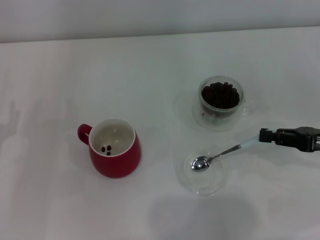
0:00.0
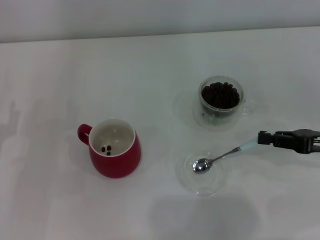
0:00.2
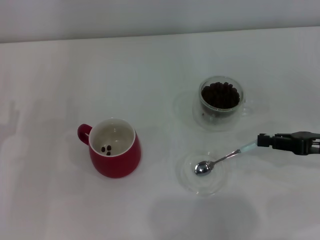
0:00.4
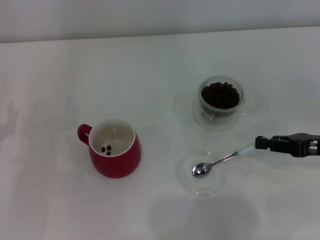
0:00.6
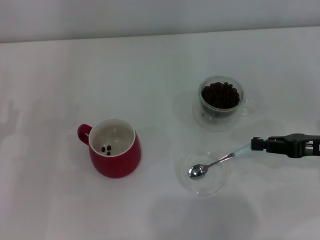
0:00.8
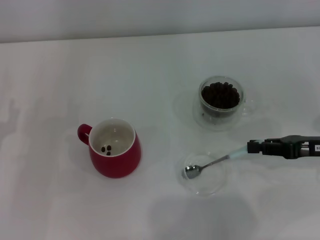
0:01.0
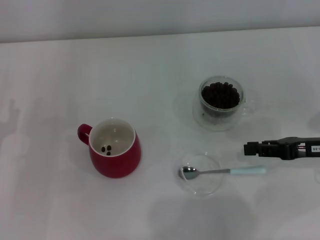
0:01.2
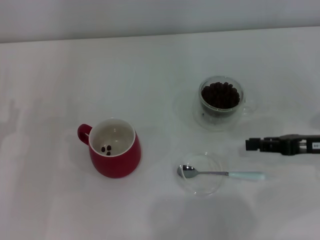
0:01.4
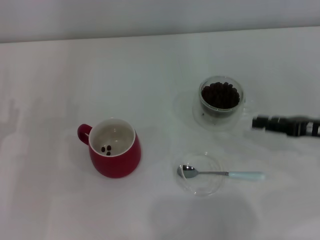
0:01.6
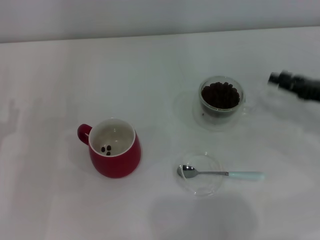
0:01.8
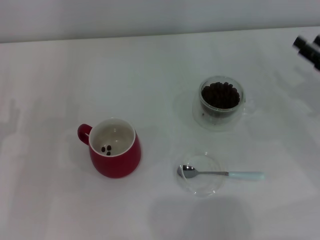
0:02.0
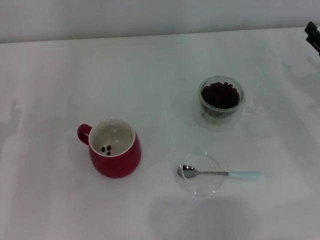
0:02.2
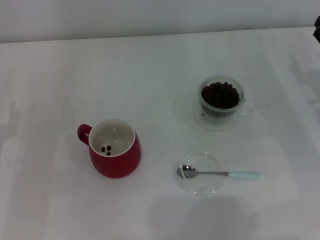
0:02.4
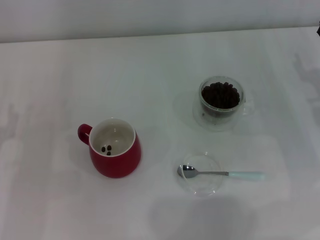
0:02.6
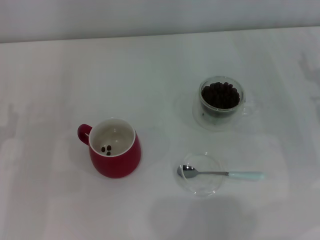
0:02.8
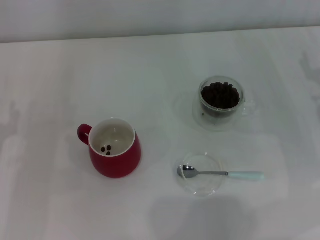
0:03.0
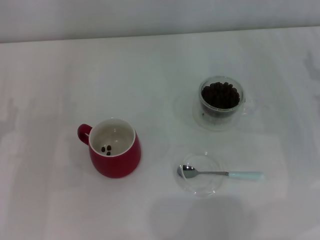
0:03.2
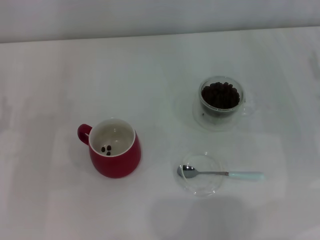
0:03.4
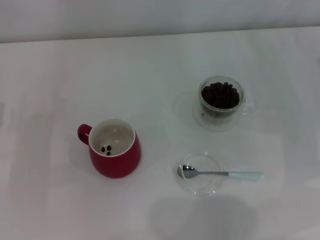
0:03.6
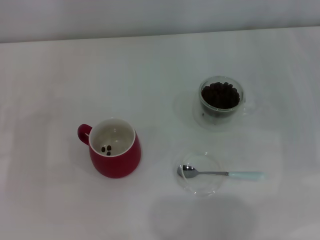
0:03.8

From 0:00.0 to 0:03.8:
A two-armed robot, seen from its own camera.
Task of the whole recording: Use a blue spoon to take out the coffee beans from the glass and pour them into the red cup.
Step, from 0:00.0 to 0:01.8: Place the spoon back in its original place with the right gripper.
From 0:00.0 to 0:01.2: The grippers make only small movements.
From 0:01.2 to 0:02.6: The right gripper heads forward, covering about 5 cm, and opens up.

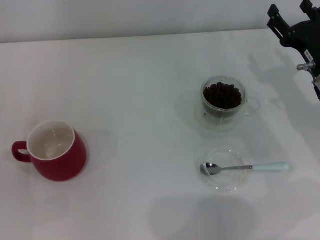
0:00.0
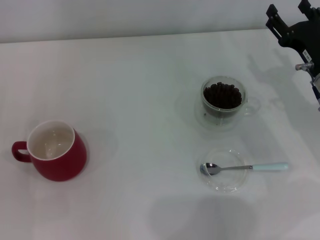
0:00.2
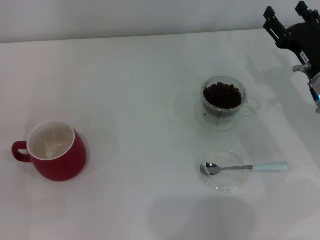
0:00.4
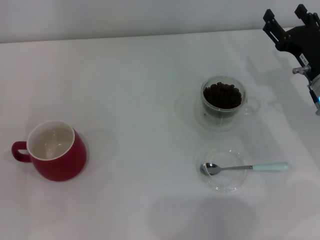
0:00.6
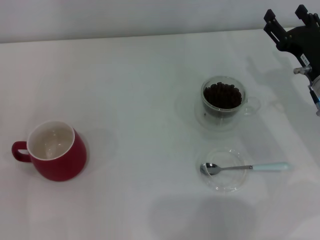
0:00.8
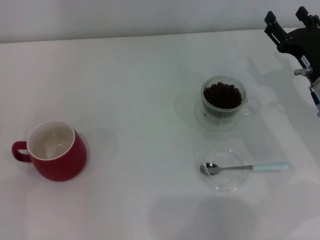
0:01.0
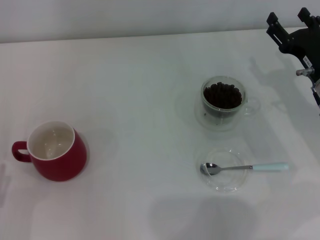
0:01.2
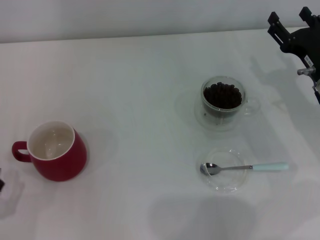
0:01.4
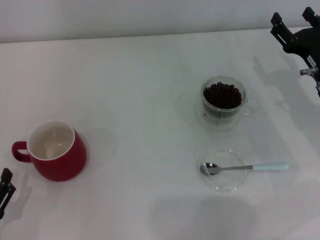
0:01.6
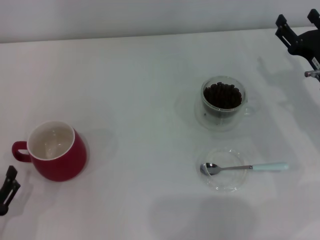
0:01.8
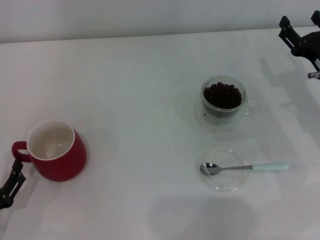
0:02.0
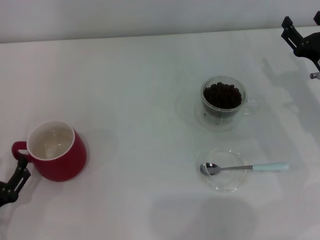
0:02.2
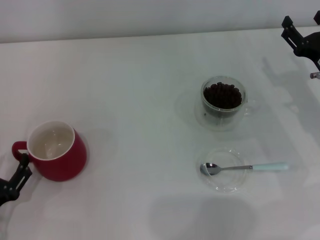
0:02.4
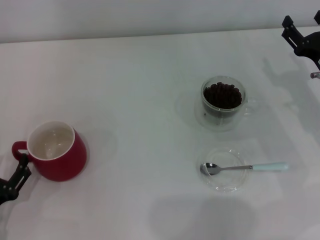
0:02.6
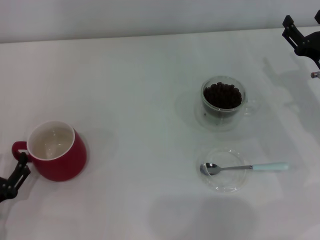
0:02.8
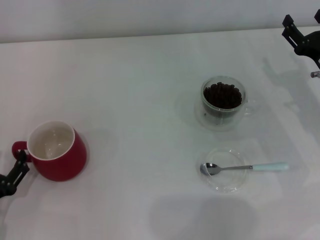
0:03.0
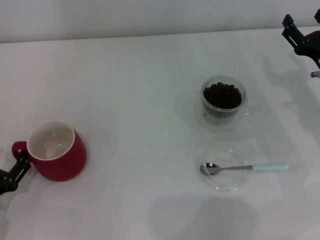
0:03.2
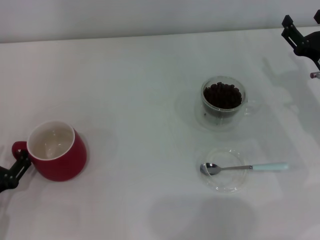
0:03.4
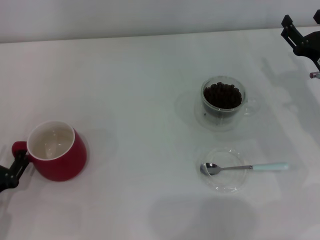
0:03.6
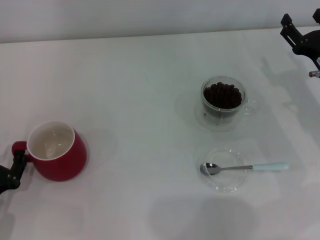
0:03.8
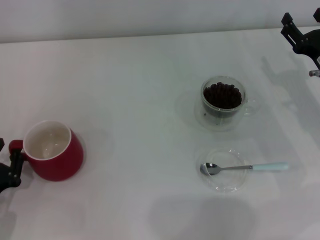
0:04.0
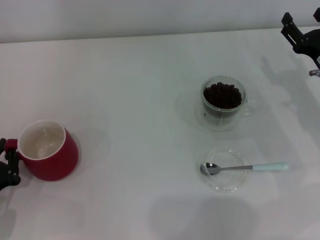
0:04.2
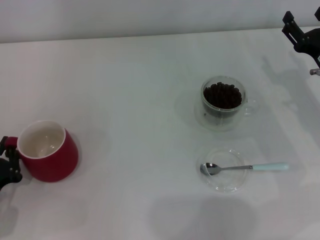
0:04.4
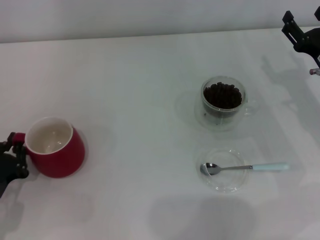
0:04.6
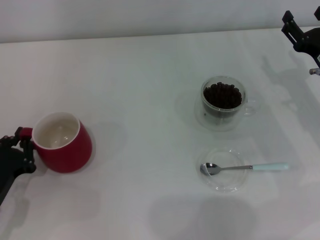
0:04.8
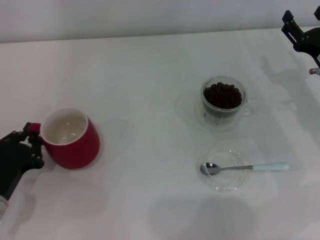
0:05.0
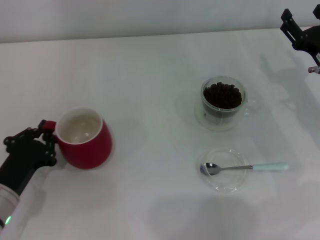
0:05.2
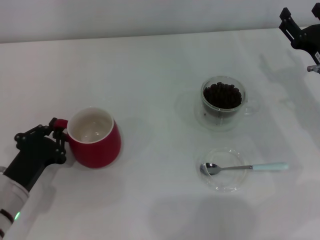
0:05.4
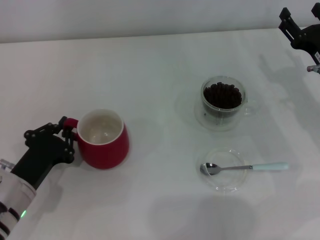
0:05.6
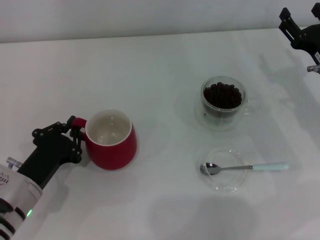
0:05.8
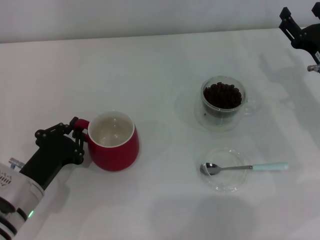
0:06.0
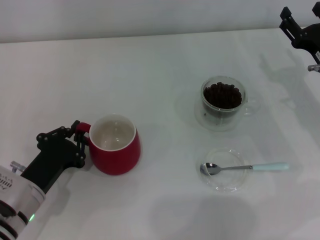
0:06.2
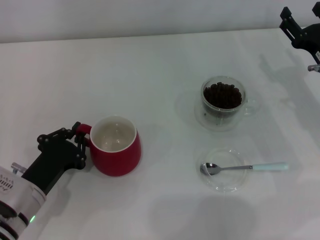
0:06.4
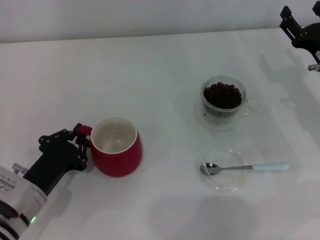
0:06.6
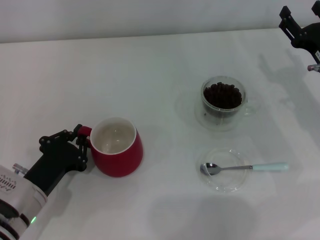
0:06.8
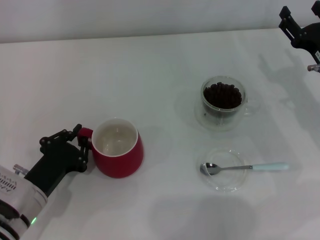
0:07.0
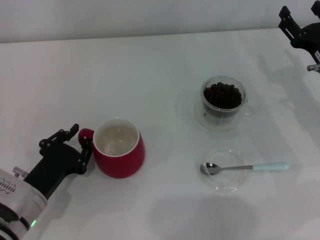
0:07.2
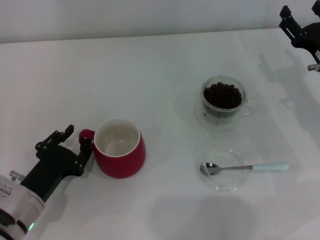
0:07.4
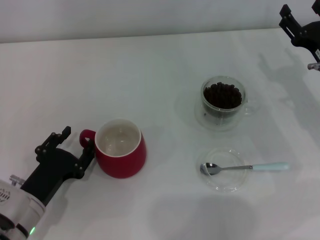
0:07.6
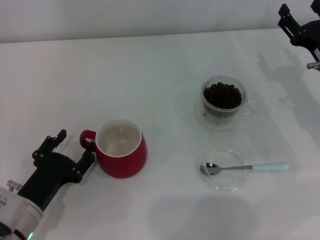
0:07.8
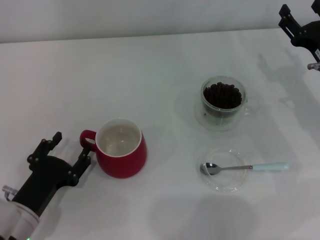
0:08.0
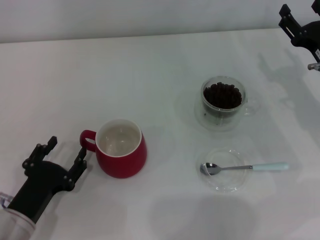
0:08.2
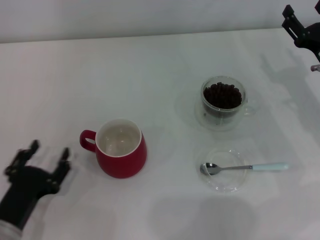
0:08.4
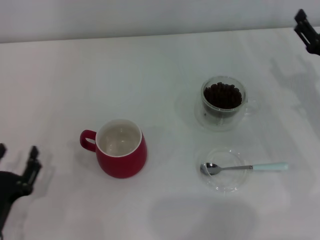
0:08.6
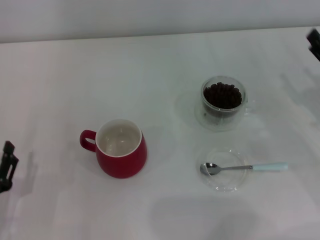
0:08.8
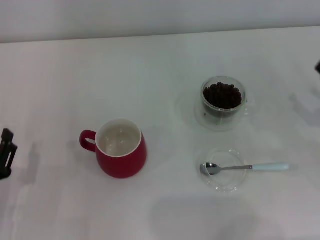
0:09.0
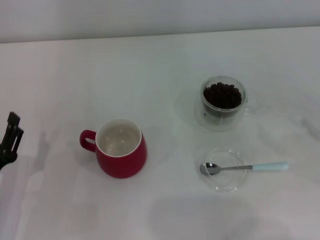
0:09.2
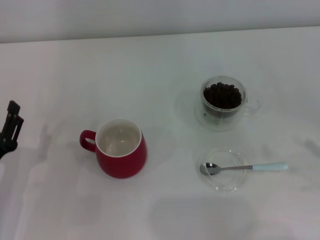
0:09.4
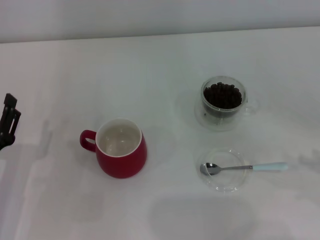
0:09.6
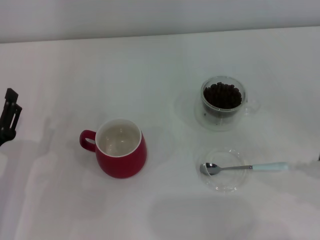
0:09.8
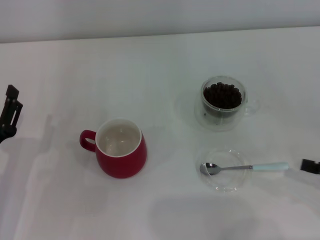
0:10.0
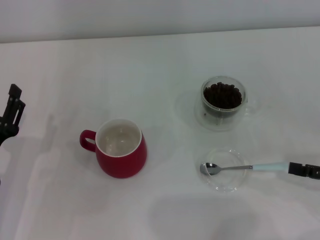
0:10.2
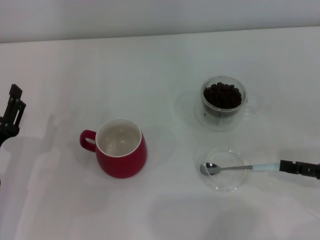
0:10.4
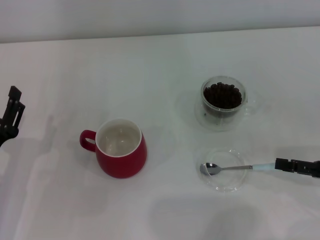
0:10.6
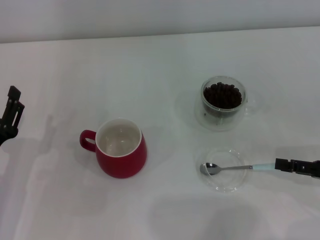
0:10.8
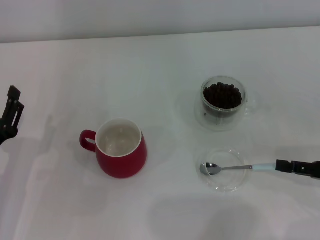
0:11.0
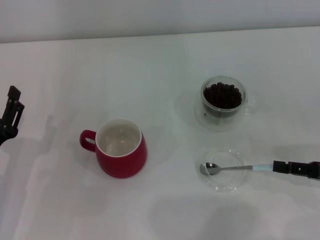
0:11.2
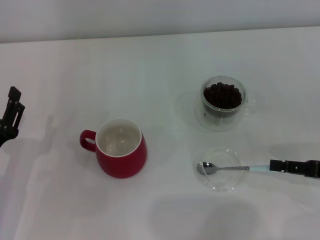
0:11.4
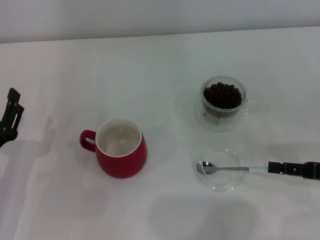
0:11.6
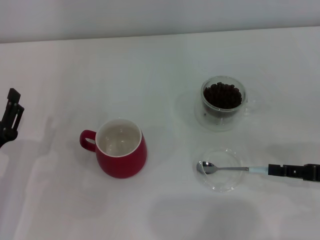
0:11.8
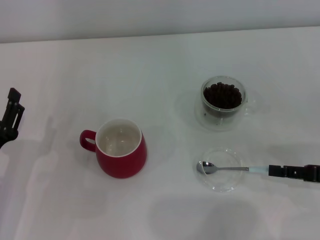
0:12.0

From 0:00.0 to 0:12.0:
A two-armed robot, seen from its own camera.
Task of the whole recording: Use a blue spoon to take out the coffee beans from the glass and pour them into the red cup.
Step, from 0:00.0 to 0:08.2: Move the cup to the center of view with the left gripper.
From 0:00.0 to 0:01.6: The left gripper travels backward by roughly 10 cm.
From 0:01.6 to 0:03.0: The left gripper shifts about 5 cm forward.
From 0:03.0 to 0:04.4: The left gripper closes up.
From 0:04.4 to 0:06.0: The left gripper is displaced to the right by approximately 5 cm.
From 0:06.0 to 0:07.6: The left gripper opens.
From 0:07.6 to 0:09.0: The right gripper moves backward and to the right, roughly 10 cm; the left gripper goes approximately 5 cm to the left, and opens.
From 0:09.0 to 0:10.4: The left gripper shifts about 5 cm forward.
From 0:10.4 to 0:12.0: The right gripper closes its fingers.

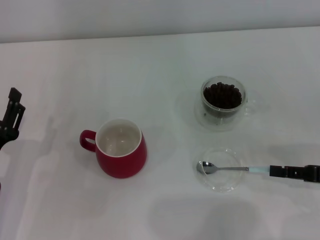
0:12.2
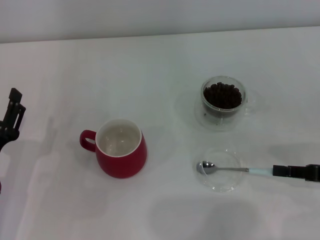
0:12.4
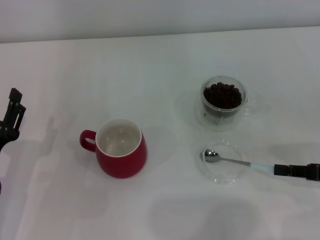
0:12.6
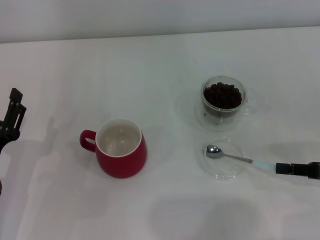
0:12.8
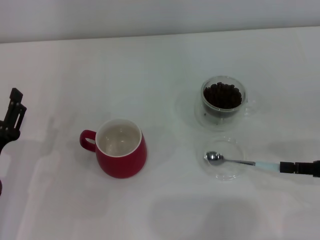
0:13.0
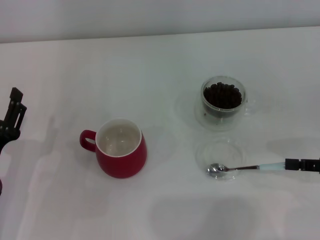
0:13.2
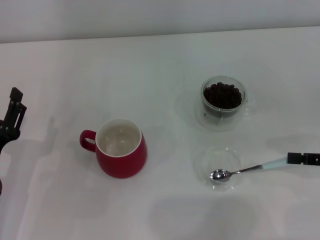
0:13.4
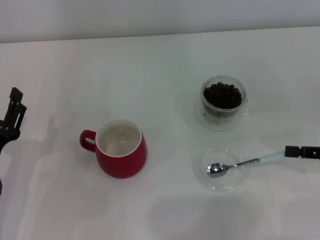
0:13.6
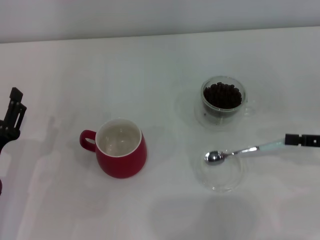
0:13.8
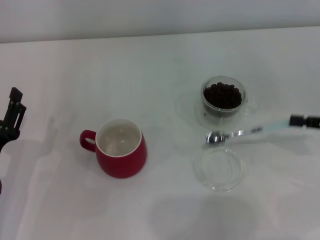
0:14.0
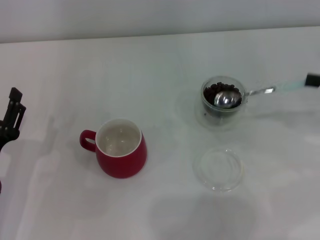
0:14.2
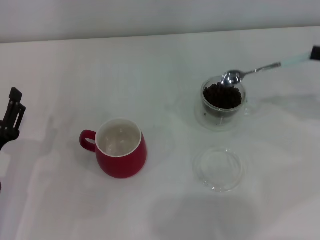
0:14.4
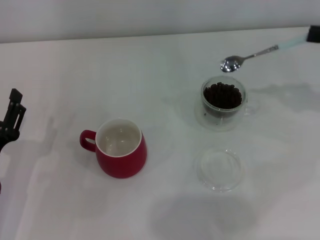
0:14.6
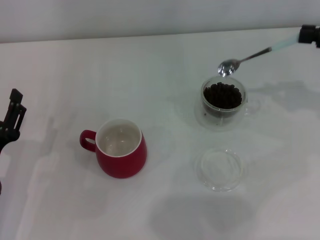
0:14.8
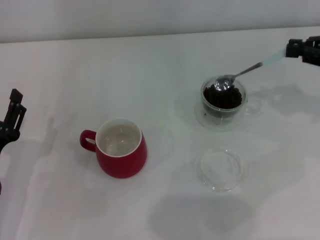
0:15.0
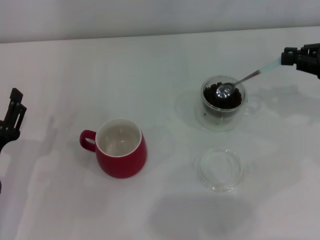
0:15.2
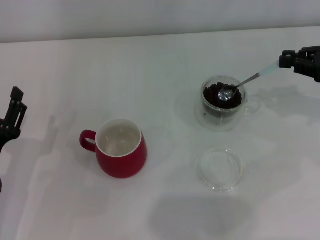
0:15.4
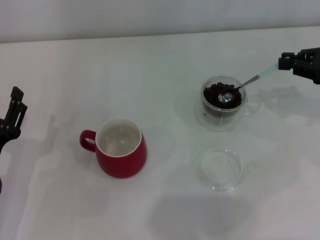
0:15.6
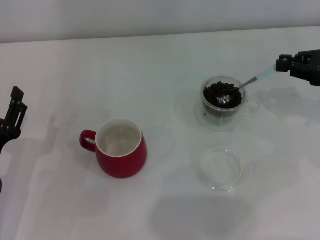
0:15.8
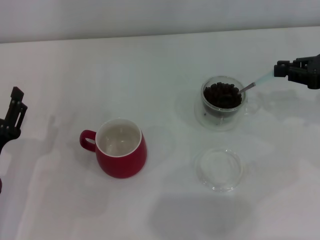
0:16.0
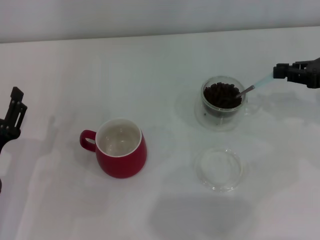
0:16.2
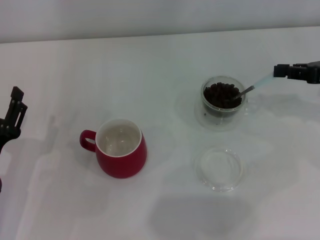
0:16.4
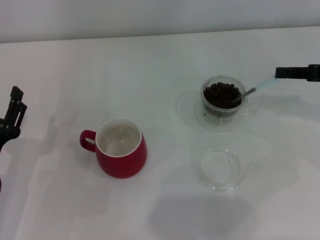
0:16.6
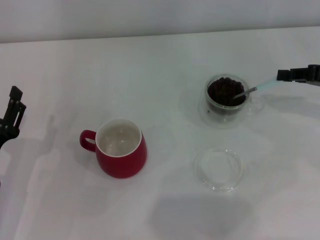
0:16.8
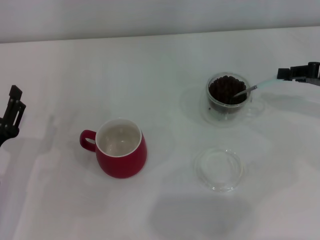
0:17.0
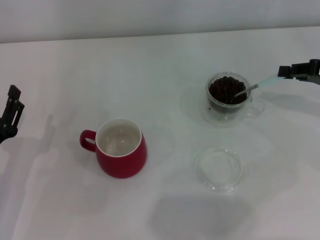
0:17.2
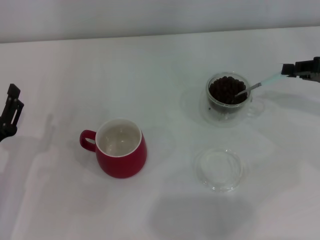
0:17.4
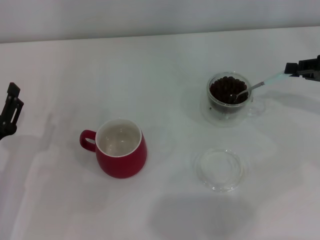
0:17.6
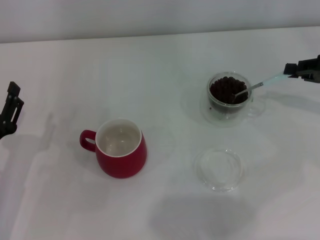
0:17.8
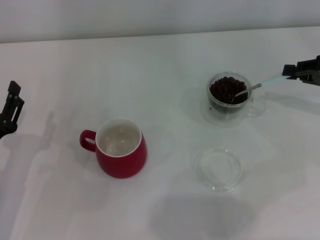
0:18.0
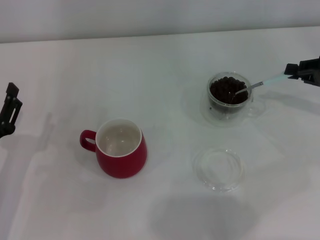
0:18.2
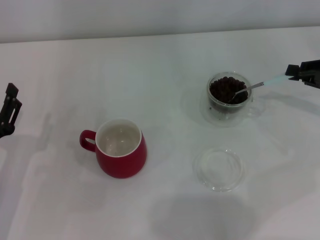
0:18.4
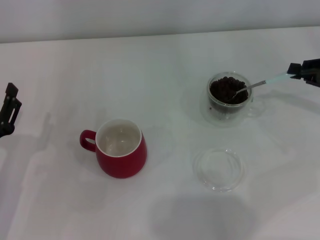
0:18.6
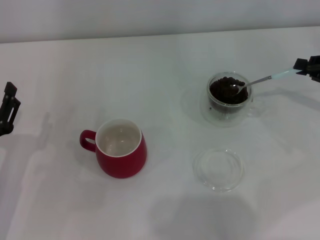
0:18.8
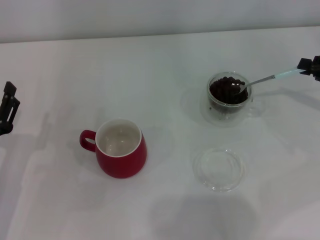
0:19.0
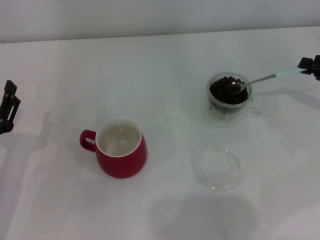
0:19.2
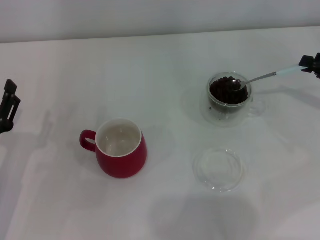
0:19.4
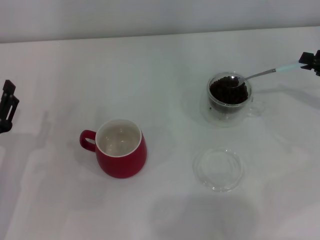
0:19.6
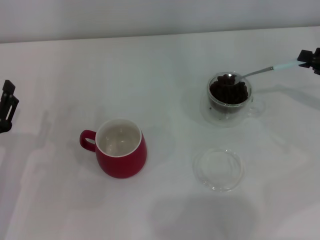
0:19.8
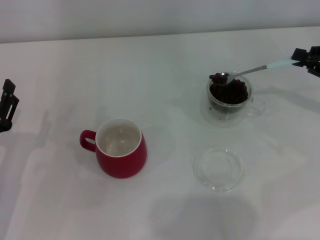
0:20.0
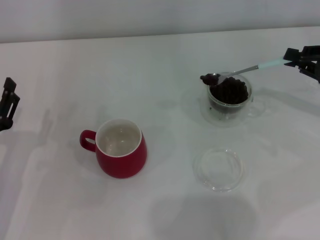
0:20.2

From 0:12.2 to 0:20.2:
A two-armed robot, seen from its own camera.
Task of the whole recording: Use a blue spoon to take out the coffee beans from the glass and pour them into the red cup.
From 0:12.2 to 0:13.8: The right gripper shifts by about 5 cm, and closes its fingers.
From 0:13.8 to 0:15.4: The right gripper travels forward and upward by some 10 cm.
From 0:17.0 to 0:18.6: The grippers make only small movements.
From 0:18.6 to 0:20.2: There are only small adjustments of the grippers.
